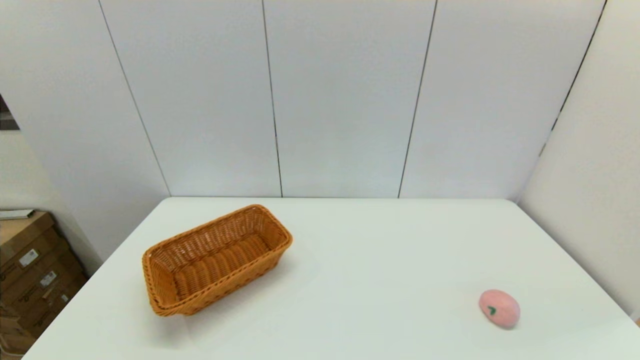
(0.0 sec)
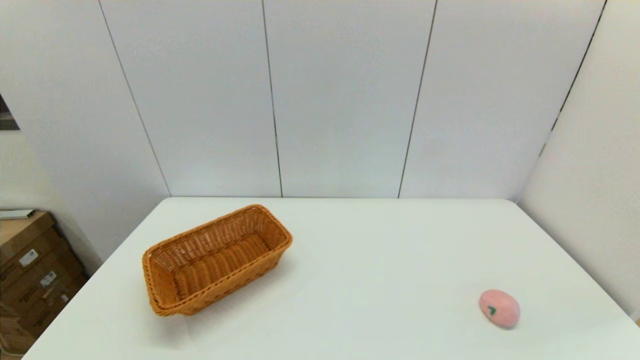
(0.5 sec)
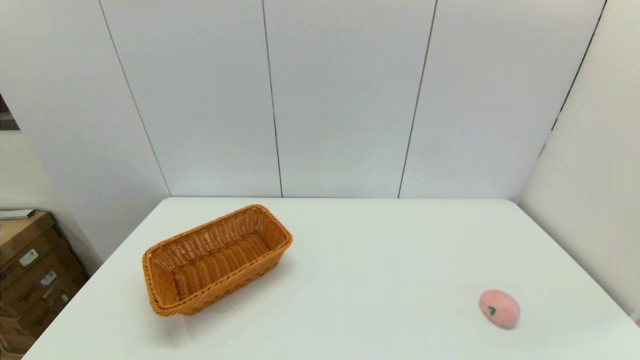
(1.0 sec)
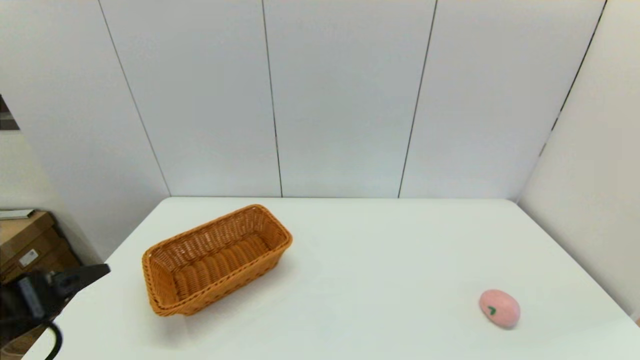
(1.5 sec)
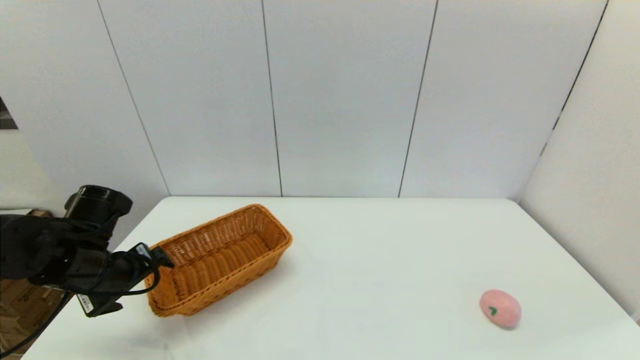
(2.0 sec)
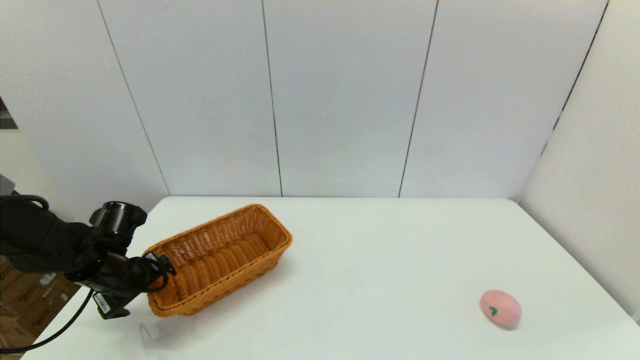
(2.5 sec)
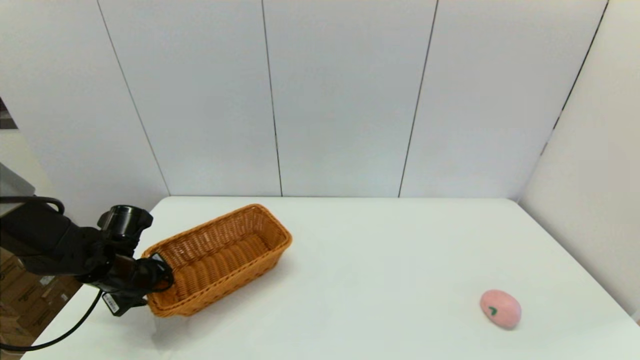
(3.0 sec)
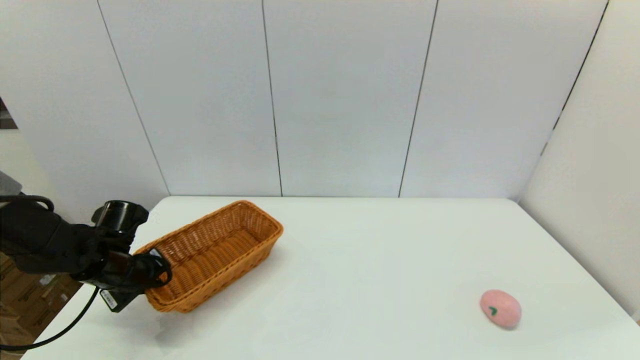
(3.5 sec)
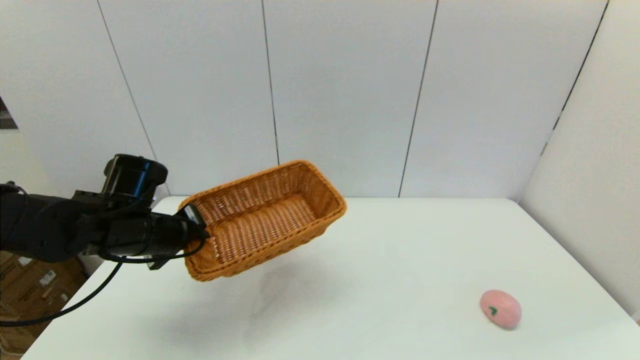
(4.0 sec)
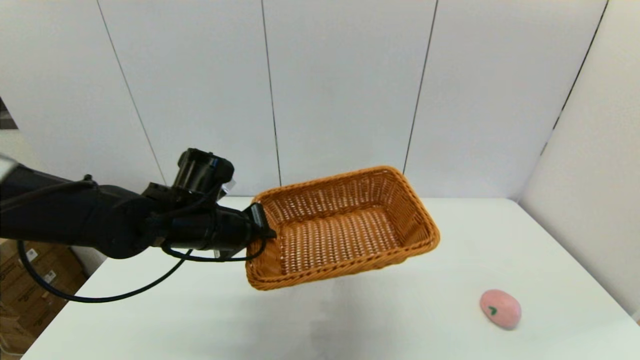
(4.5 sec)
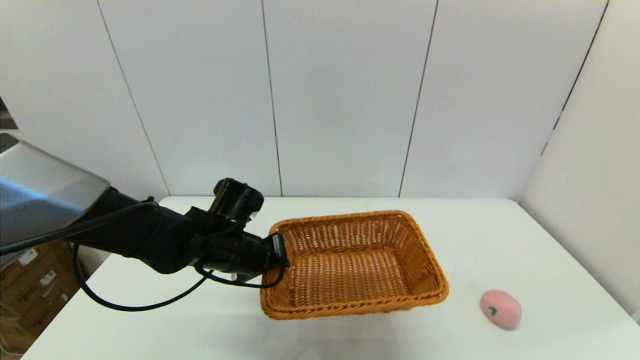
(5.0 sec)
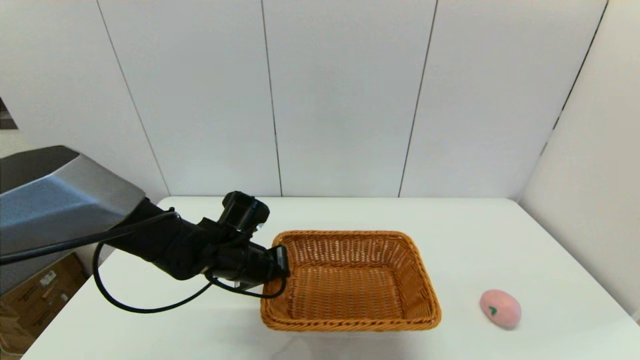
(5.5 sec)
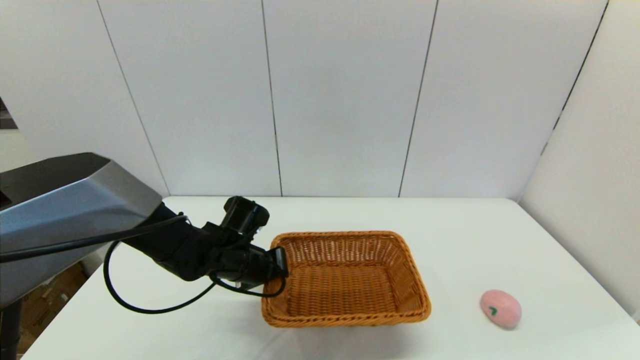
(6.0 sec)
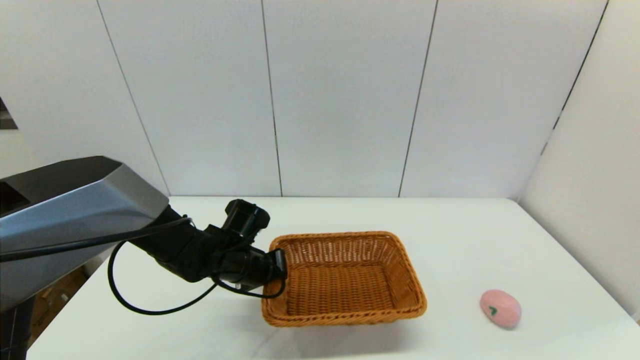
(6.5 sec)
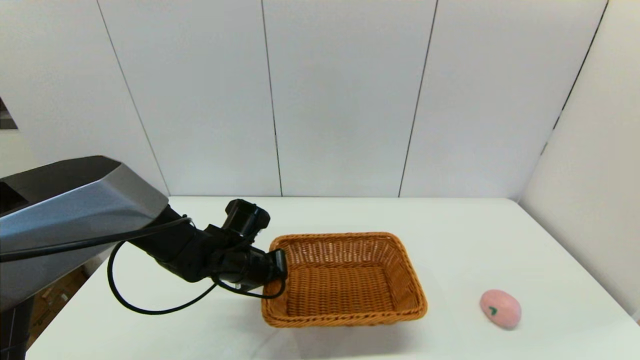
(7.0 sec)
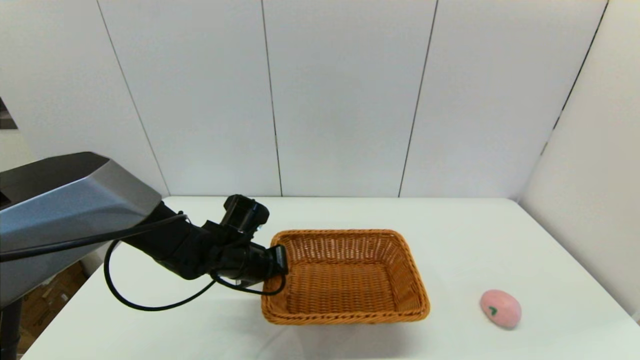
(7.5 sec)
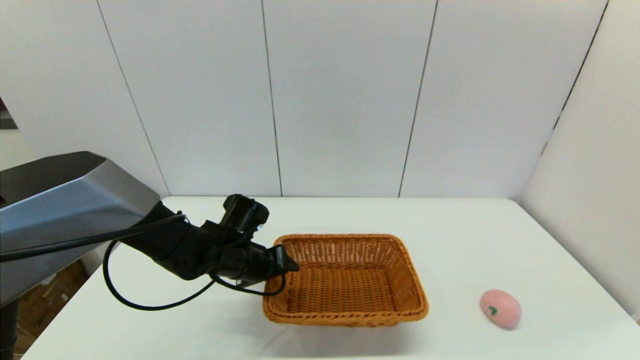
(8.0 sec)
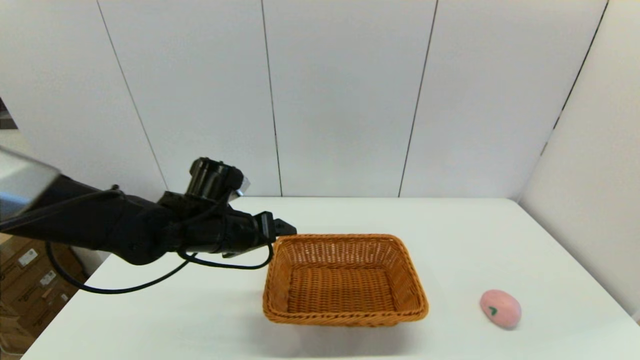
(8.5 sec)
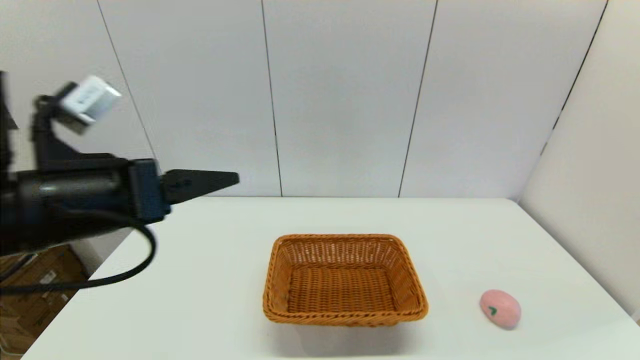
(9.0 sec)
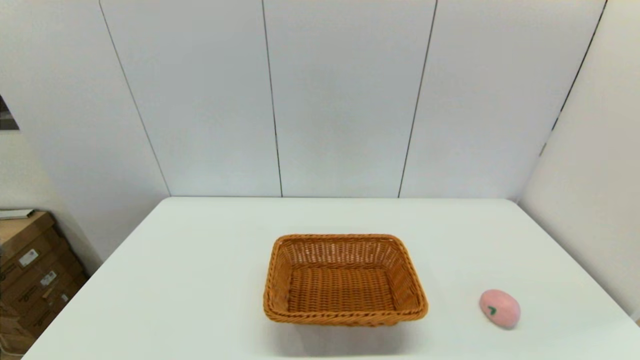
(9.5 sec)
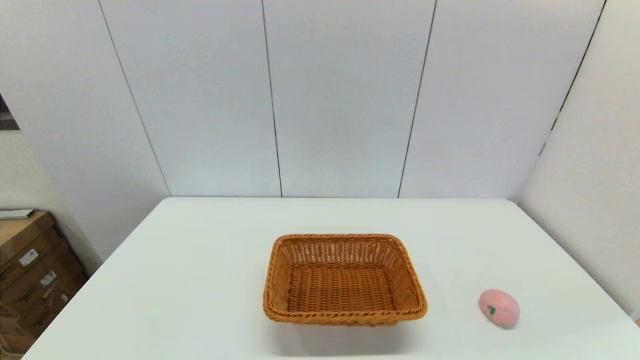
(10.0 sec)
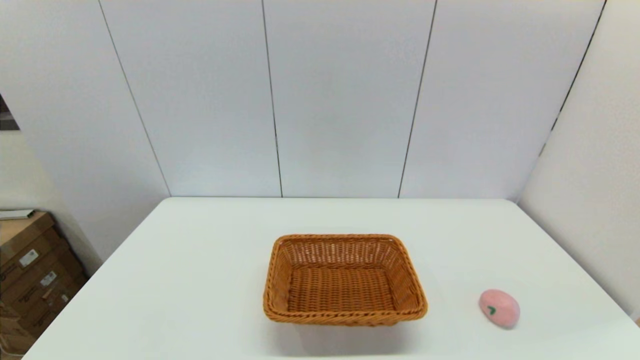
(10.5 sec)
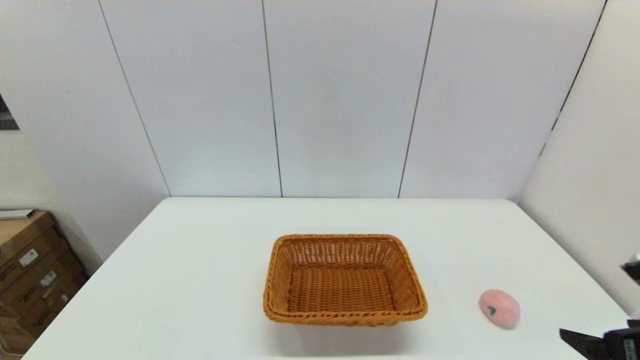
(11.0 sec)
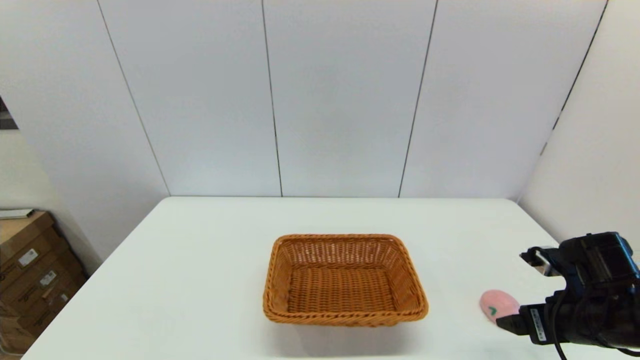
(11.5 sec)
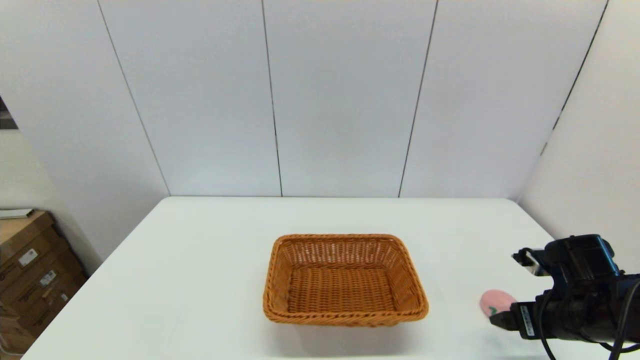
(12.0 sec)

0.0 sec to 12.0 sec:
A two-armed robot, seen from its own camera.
Step, 0.0 sec to 3.0 sec: Grasp the light basket with the left gripper.
Step, 3.5 sec to 7.5 sec: Place the light basket on the middle of the table with the left gripper.
0.0 sec to 2.0 sec: The left gripper travels forward by about 30 cm.
2.0 sec to 4.0 sec: The left gripper moves to the right, approximately 5 cm, moves some 5 cm downward and comes back, and closes its fingers.
4.0 sec to 6.0 sec: The left gripper moves to the right and downward, some 15 cm.
6.0 sec to 8.0 sec: The left gripper opens its fingers.
8.0 sec to 10.0 sec: The left gripper goes some 40 cm backward and to the left, and opens up.
10.0 sec to 12.0 sec: The right gripper goes approximately 25 cm forward.

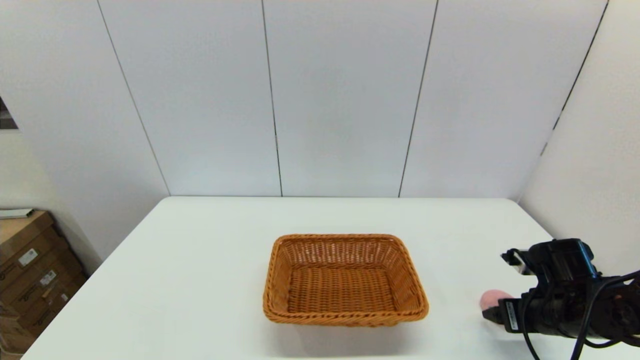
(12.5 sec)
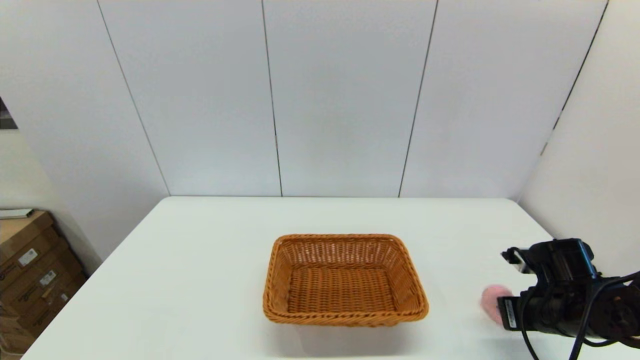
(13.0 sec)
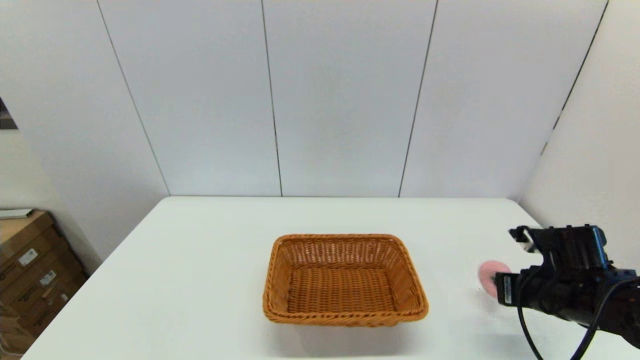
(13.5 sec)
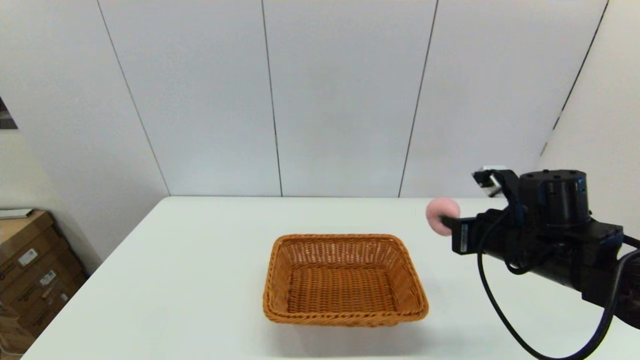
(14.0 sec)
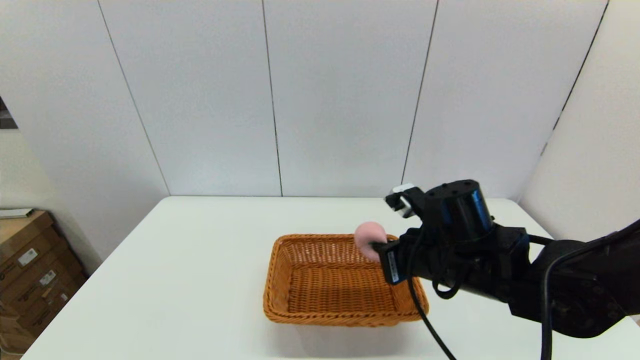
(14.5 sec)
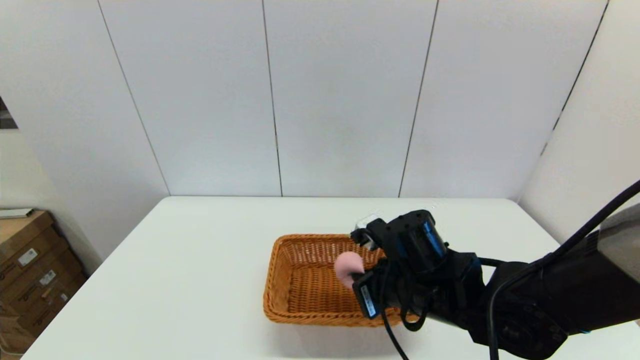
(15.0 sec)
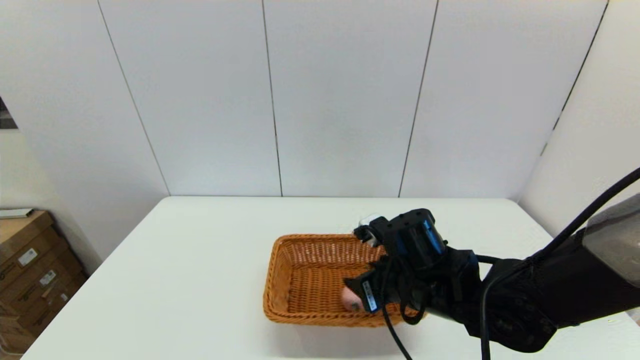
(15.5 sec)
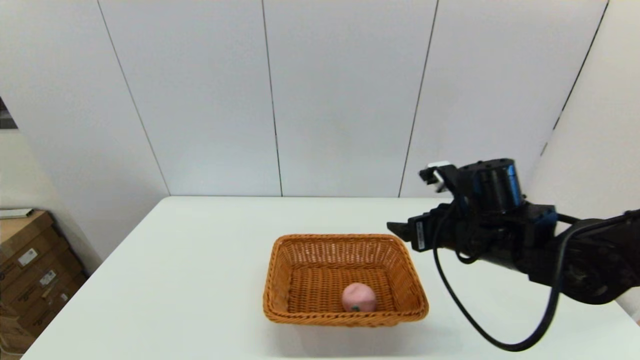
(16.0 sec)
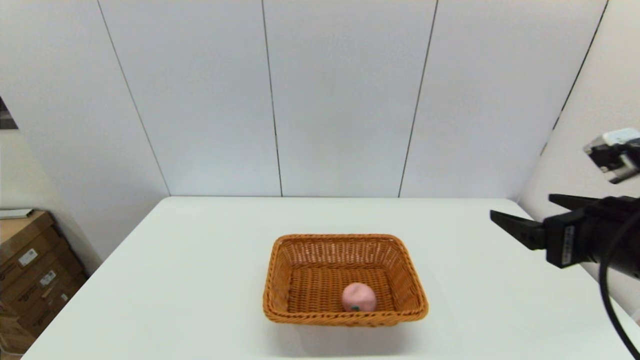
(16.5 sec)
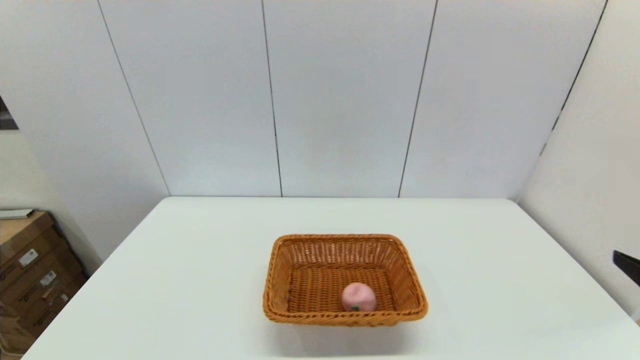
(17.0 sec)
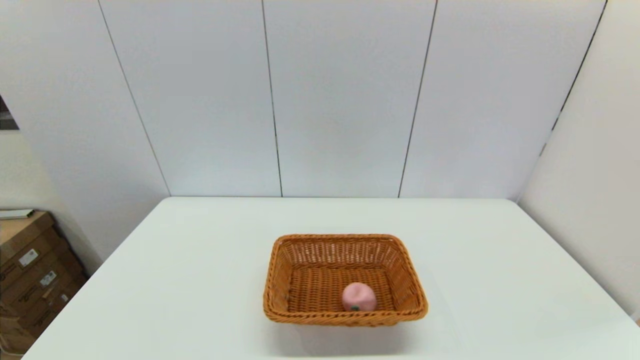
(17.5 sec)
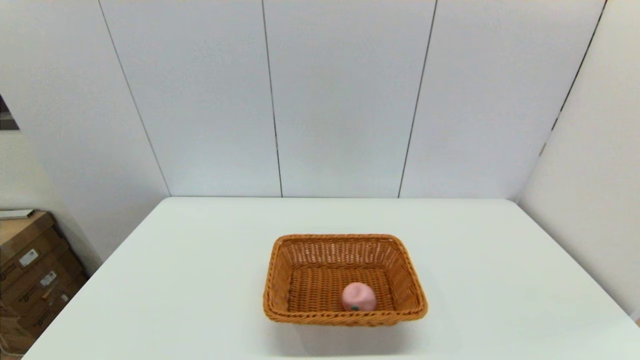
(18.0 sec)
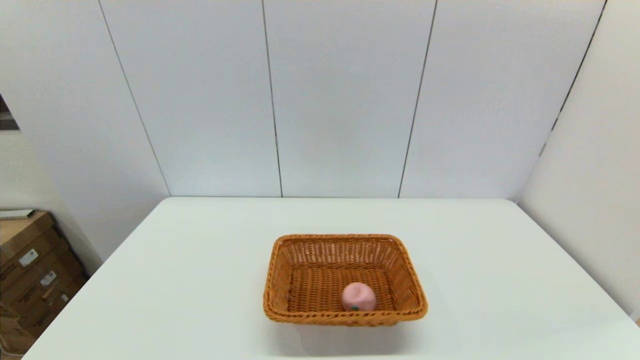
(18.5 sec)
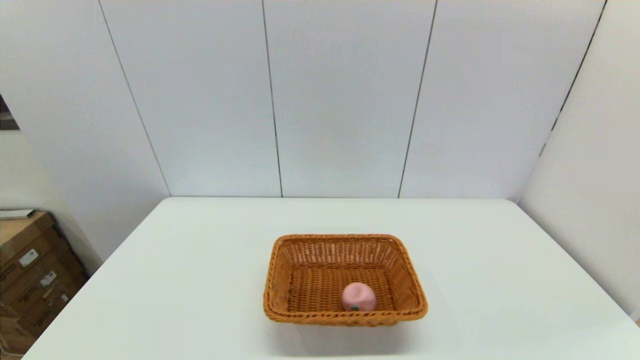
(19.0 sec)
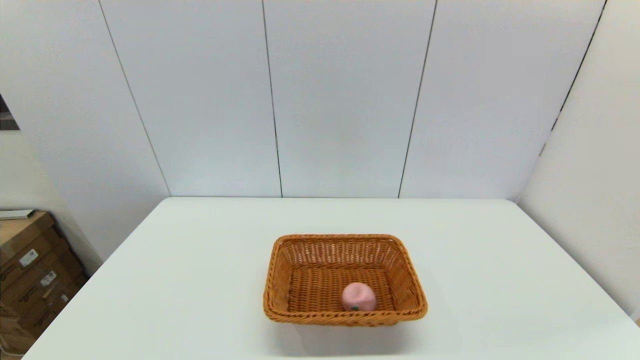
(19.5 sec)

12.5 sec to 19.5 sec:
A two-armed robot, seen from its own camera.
Step, 13.5 sec to 15.5 sec: Place the peach into the light basket with the right gripper.
12.5 sec to 14.5 sec: The right gripper moves to the left and upward, some 20 cm, and closes.
14.5 sec to 16.0 sec: The right gripper ends up approximately 5 cm from where it was, and opens.
16.0 sec to 17.5 sec: The right gripper is displaced backward and to the right by about 30 cm.
